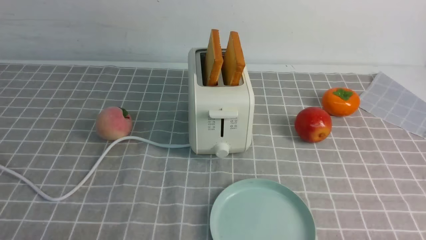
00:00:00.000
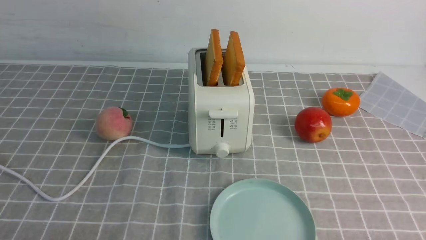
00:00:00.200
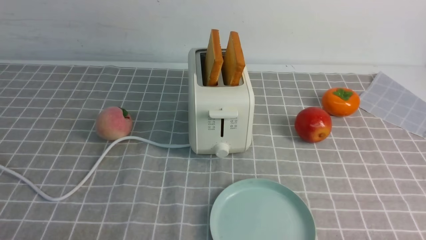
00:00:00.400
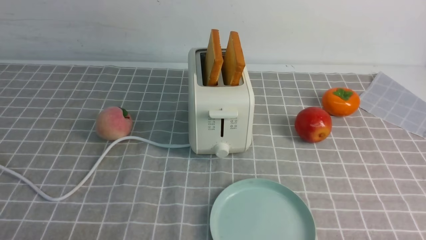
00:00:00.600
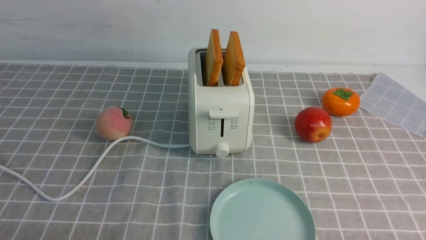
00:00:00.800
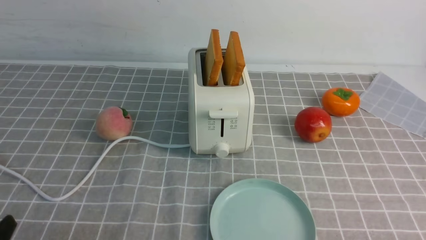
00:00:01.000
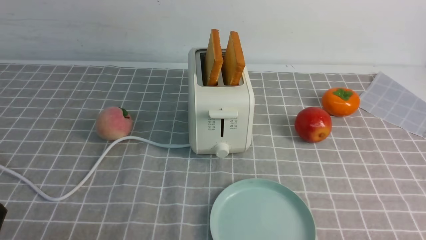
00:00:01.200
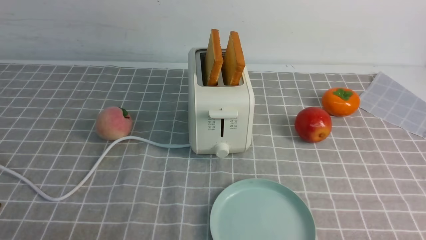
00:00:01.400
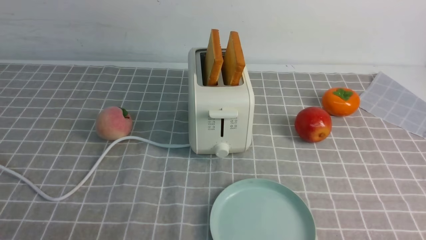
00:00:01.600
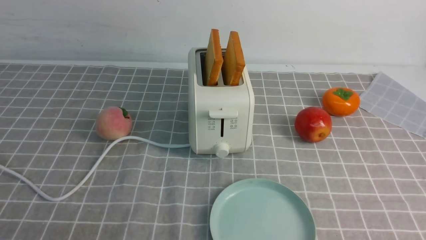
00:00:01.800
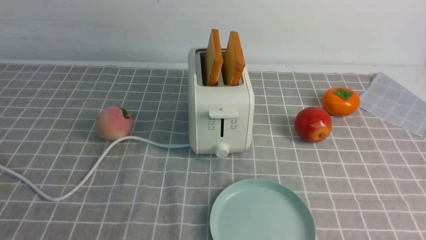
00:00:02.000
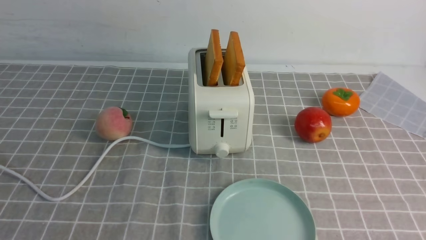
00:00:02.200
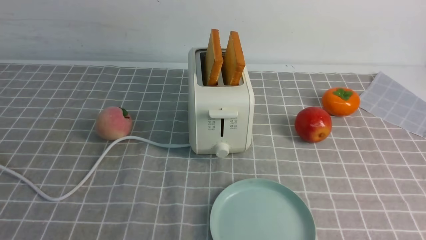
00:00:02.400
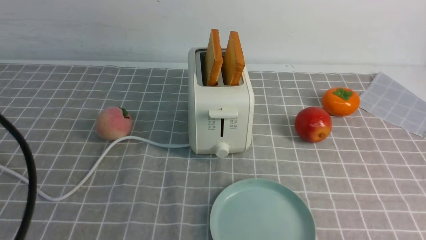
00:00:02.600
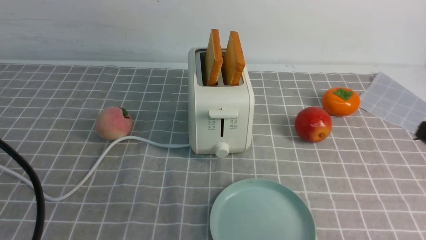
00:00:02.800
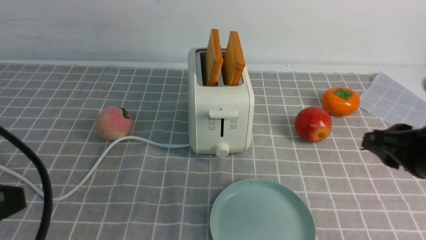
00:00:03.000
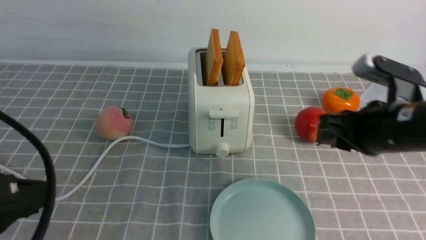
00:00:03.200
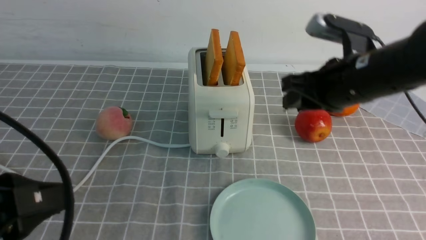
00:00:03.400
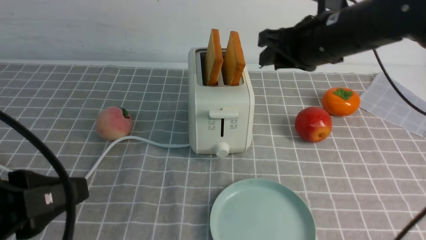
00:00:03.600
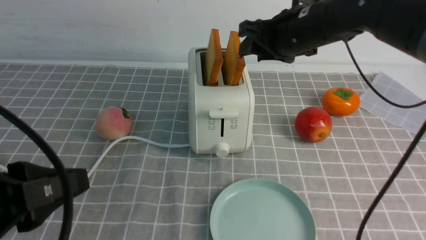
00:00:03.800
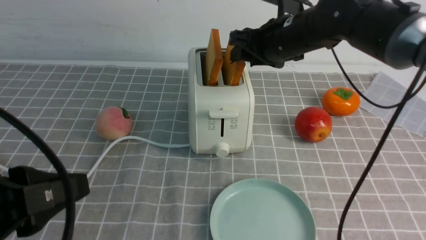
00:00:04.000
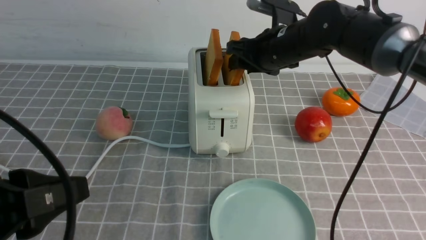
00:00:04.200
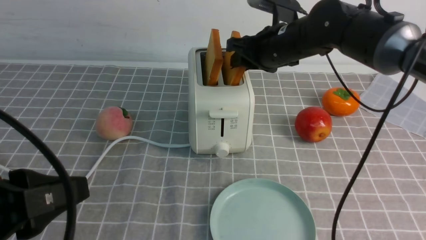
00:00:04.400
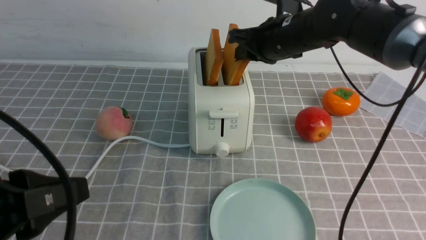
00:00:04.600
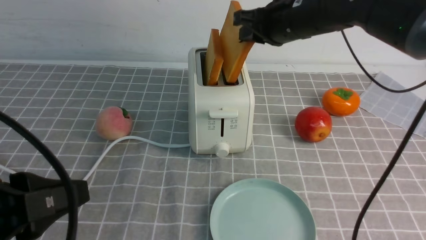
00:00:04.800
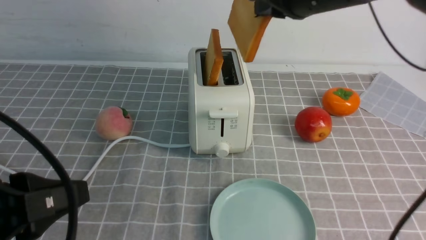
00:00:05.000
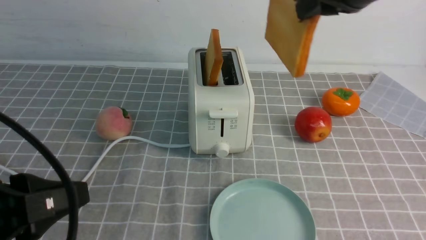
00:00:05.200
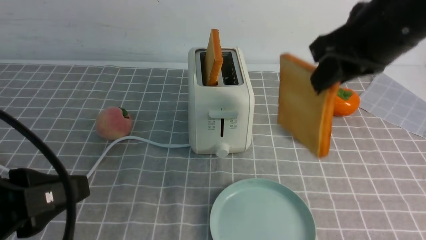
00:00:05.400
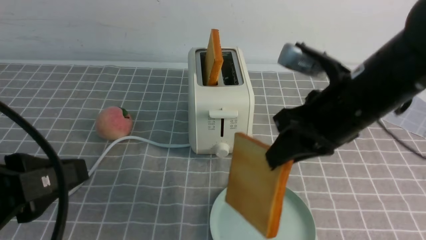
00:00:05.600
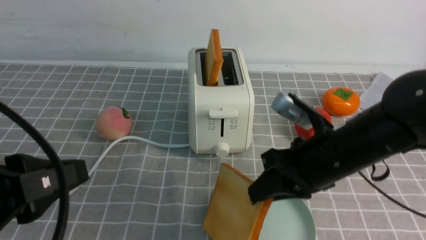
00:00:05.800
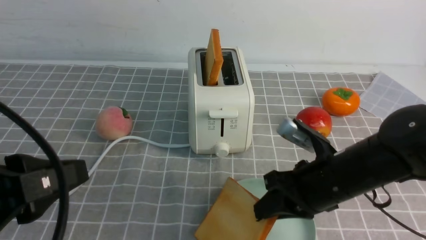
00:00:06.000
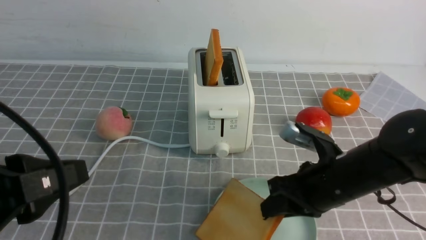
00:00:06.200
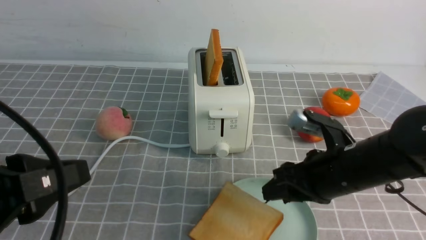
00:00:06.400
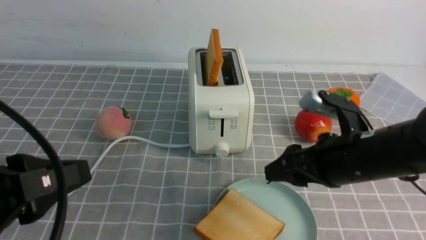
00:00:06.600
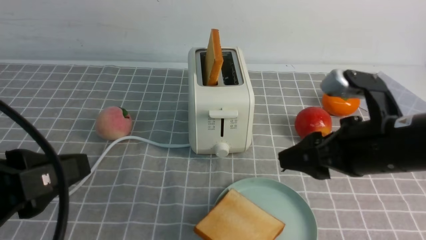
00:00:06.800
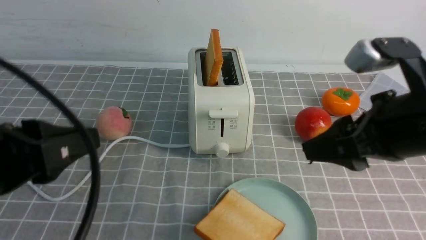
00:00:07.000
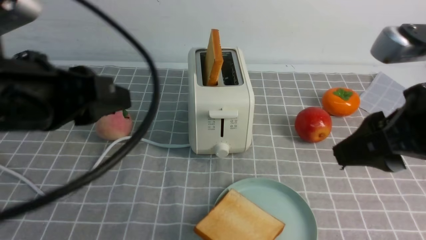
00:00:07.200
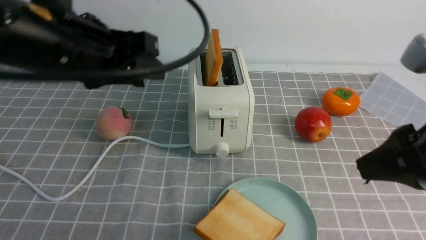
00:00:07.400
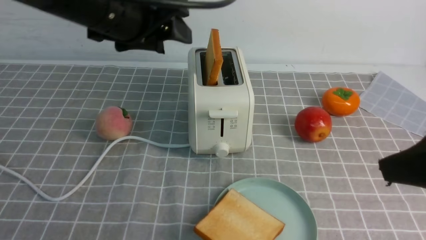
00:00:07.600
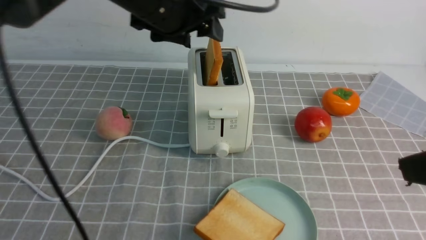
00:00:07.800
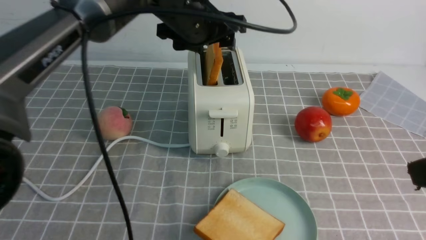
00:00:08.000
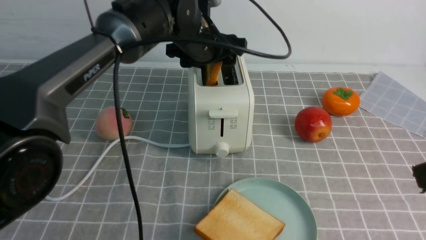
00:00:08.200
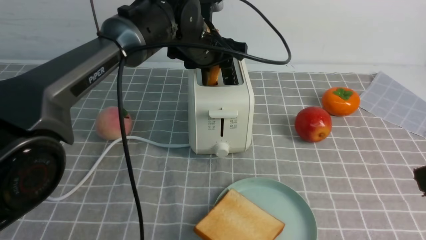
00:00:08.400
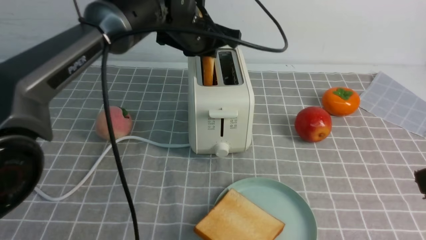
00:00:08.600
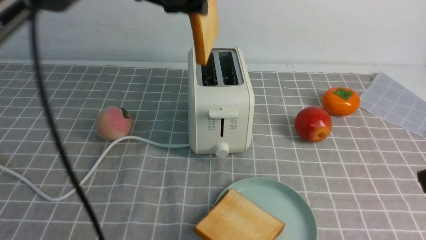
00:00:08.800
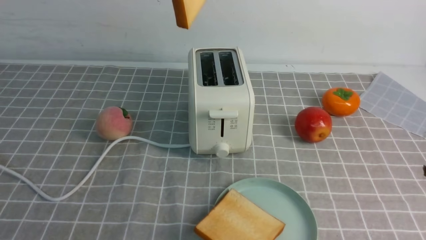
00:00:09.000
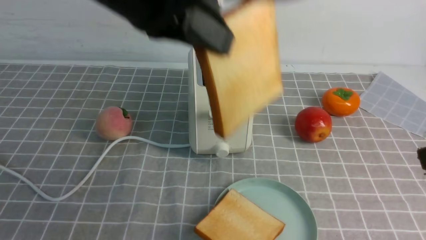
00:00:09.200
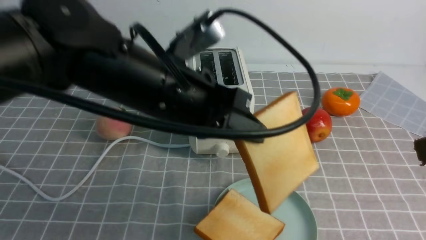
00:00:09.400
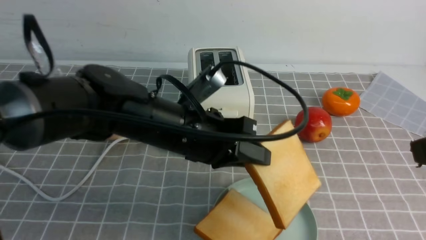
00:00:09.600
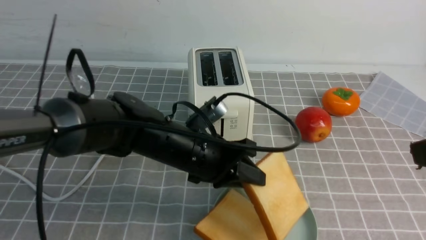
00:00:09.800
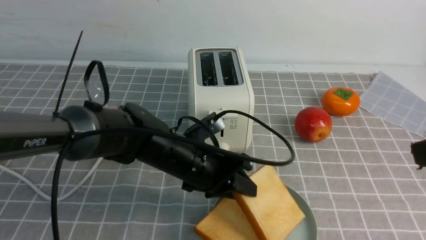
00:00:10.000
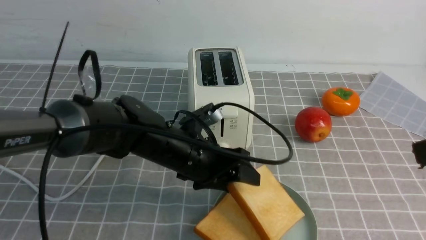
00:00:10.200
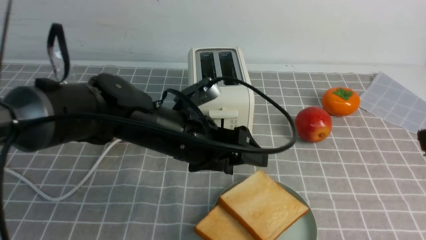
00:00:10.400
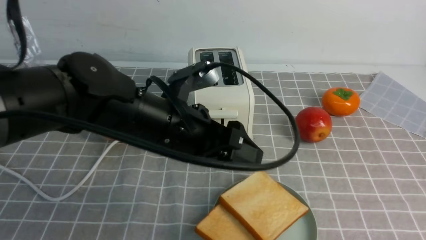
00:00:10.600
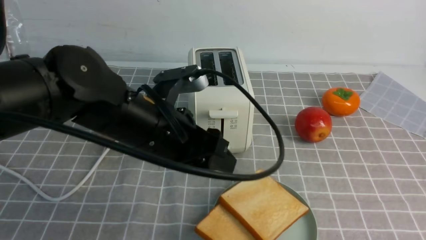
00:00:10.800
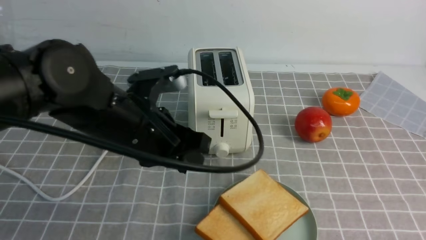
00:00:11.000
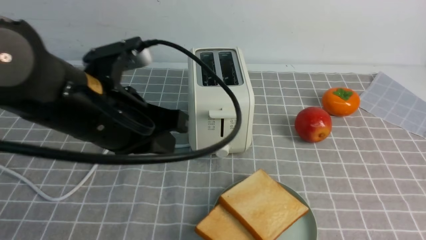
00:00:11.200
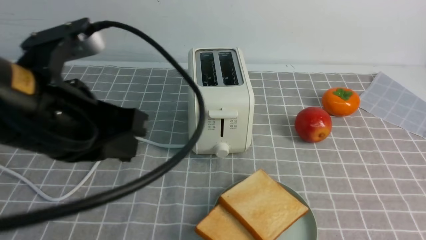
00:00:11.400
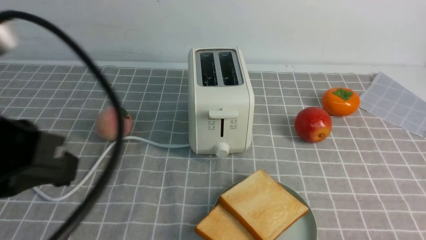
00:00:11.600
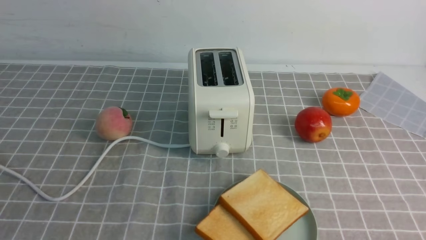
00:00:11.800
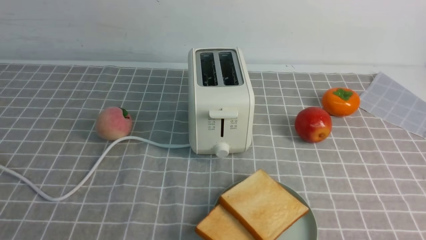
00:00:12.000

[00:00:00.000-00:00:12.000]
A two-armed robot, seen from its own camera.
Task of the whole recording: take toasted bread from bread machine on grey coffee table place on plate.
Step, 00:00:00.000 to 00:00:04.800: use the right arm to take out a slice of bread.
Step, 00:00:05.000 to 00:00:06.600: use the right arm to put a slice of bread into the plate.
Step, 00:00:06.800 to 00:00:08.800: use the left arm to take out a slice of bread.
Step, 00:00:09.000 to 00:00:10.400: use the left arm to put a slice of bread into the empty plate.
00:00:01.600 to 00:00:03.000: The left gripper heads upward and forward, covering approximately 10 cm. The right gripper travels forward, to the left and upward by roughly 20 cm.
00:00:03.000 to 00:00:04.400: The right gripper shifts some 25 cm forward and to the left.
00:00:04.400 to 00:00:06.000: The right gripper moves backward and downward, some 20 cm.
00:00:06.000 to 00:00:07.600: The left gripper travels forward and to the right by approximately 25 cm, and opens up; the right gripper travels upward, backward and to the right by roughly 20 cm, and opens up.
00:00:07.600 to 00:00:09.000: The left gripper heads upward, covering approximately 5 cm, and closes its fingers.
00:00:09.000 to 00:00:10.400: The left gripper shifts about 20 cm downward, and opens up.
00:00:10.400 to 00:00:12.000: The left gripper heads backward, to the left and upward, covering some 40 cm, and closes, while the right gripper moves downward and backward, some 20 cm, and closes.
